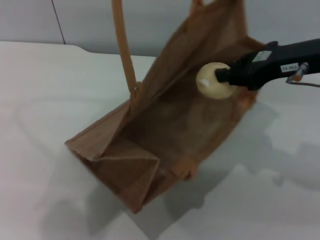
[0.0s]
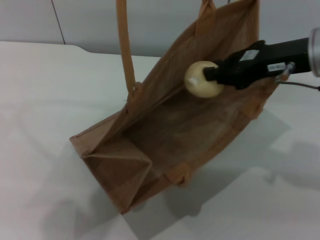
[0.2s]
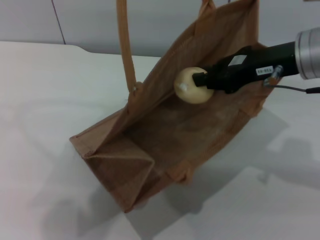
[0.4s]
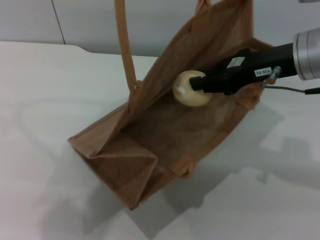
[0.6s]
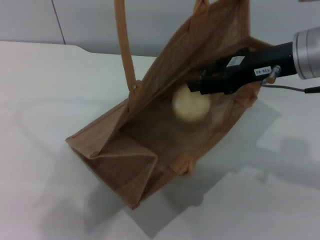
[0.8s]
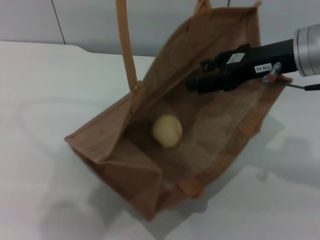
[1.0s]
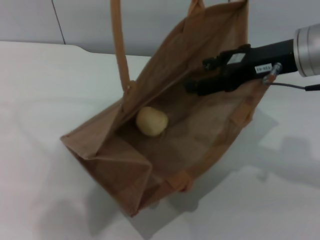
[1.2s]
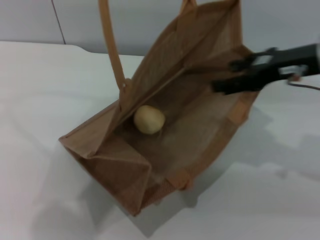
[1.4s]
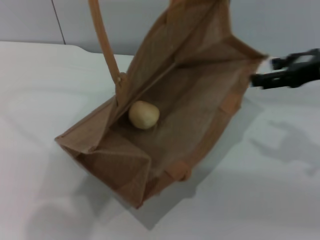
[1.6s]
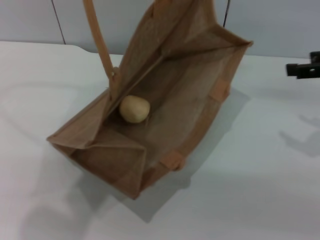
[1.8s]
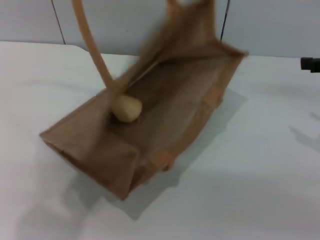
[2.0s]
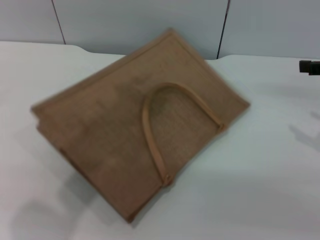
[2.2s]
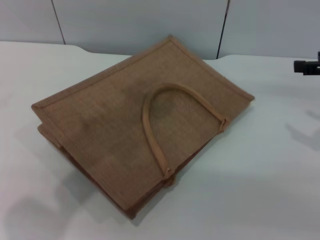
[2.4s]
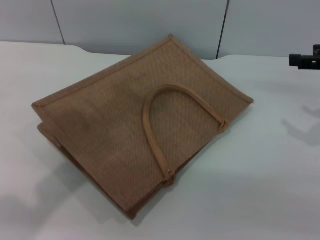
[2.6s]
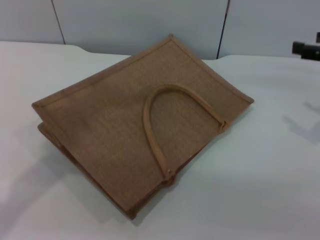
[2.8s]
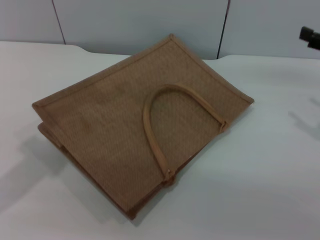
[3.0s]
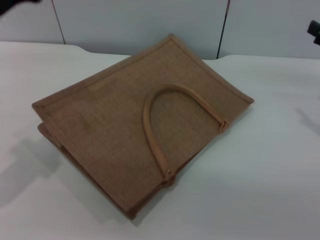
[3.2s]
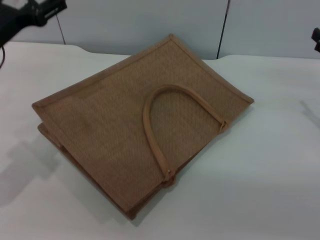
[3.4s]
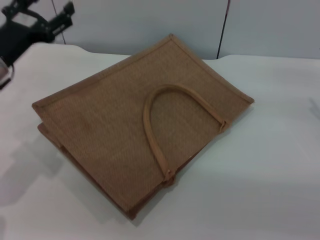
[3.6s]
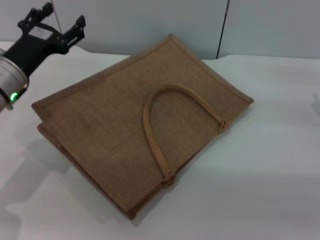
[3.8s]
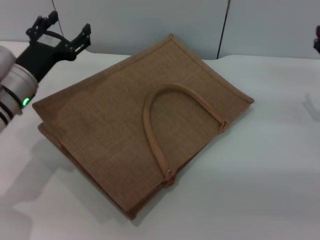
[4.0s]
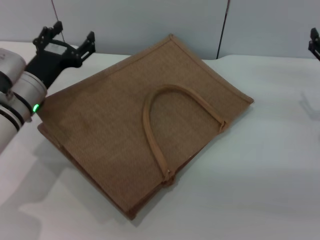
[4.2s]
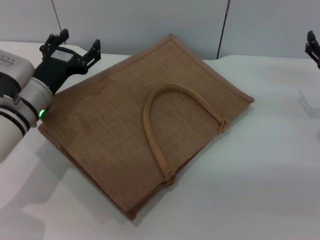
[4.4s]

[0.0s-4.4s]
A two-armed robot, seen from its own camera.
Task of the whole recording: pick up the egg yolk pastry from the table and place it in the brown handbag.
Step, 0.0s to 1.6s: Place the egg yolk pastry into the woven bag with the right gripper.
Step, 2.0s to 3.2s: Lower the woven bag with the left gripper to close it.
0.0s to 1.4s: The right gripper opens up.
1.4s to 3.0s: The left gripper goes about 20 cm downward and to the left, and opens its fingers, while the right gripper shifts about 10 cm to the right.
3.0s to 4.4s: The left gripper travels downward by roughly 20 cm.

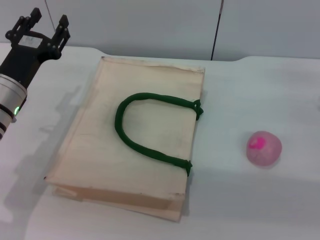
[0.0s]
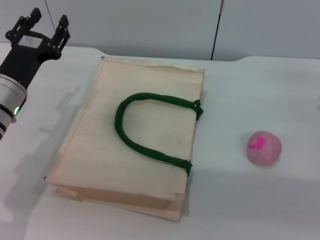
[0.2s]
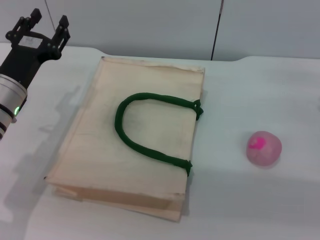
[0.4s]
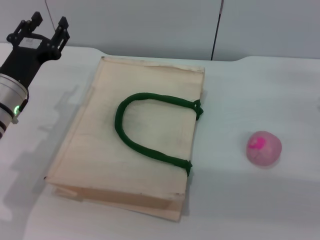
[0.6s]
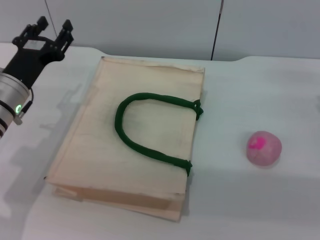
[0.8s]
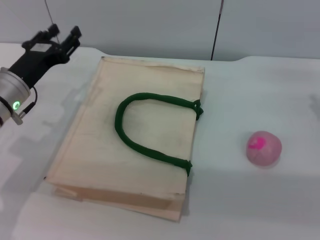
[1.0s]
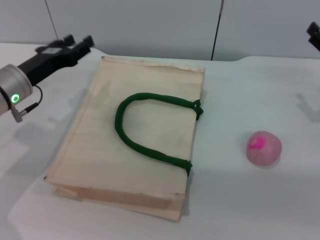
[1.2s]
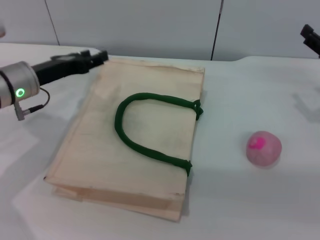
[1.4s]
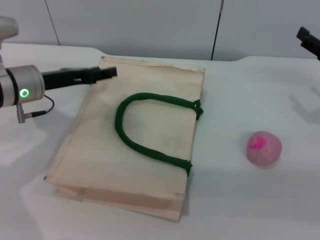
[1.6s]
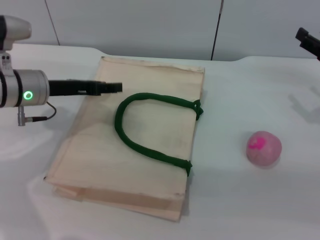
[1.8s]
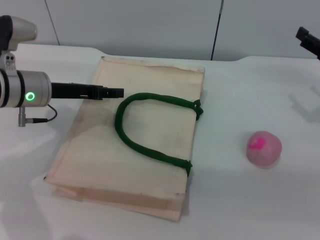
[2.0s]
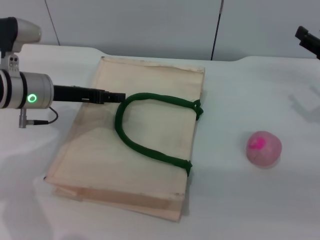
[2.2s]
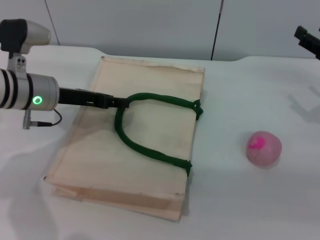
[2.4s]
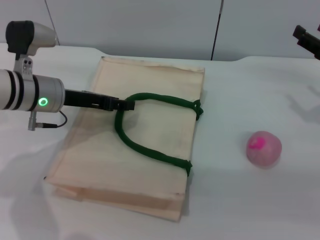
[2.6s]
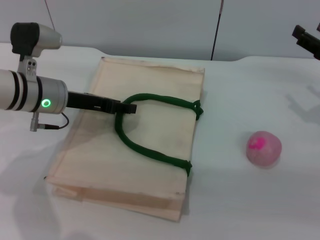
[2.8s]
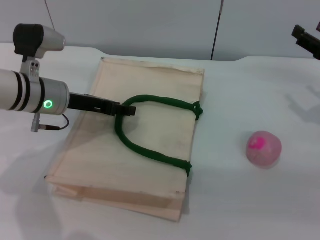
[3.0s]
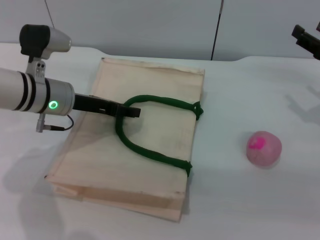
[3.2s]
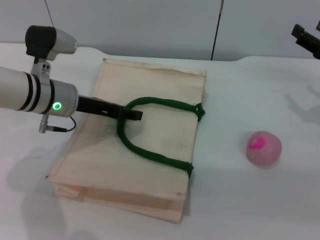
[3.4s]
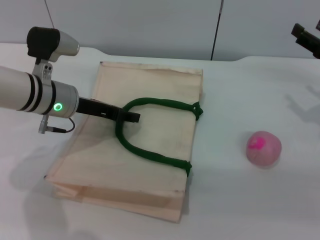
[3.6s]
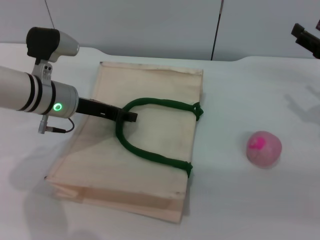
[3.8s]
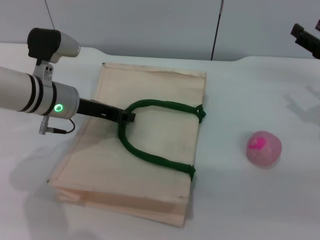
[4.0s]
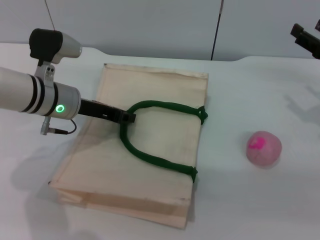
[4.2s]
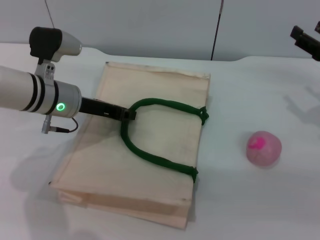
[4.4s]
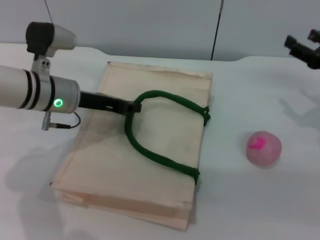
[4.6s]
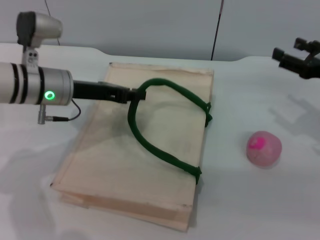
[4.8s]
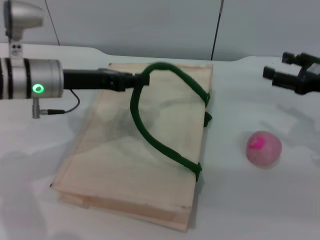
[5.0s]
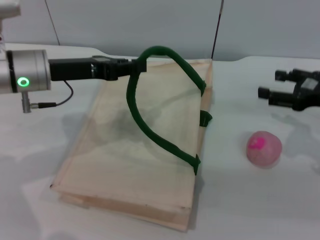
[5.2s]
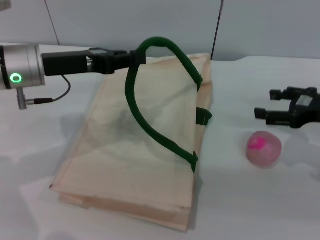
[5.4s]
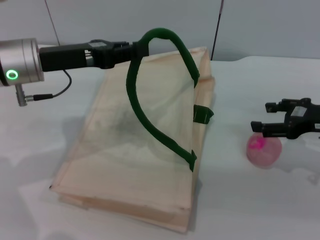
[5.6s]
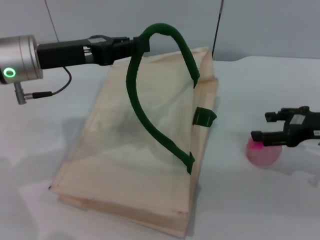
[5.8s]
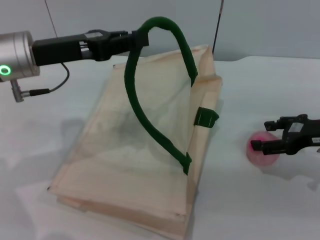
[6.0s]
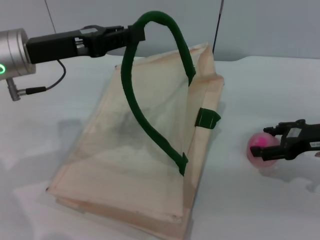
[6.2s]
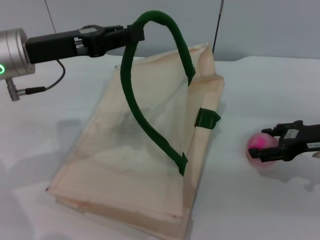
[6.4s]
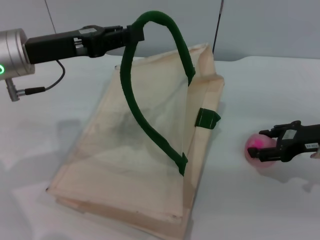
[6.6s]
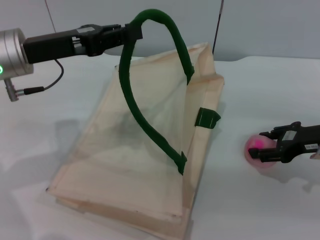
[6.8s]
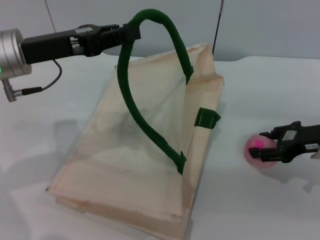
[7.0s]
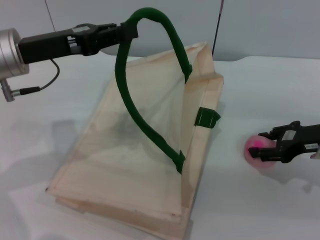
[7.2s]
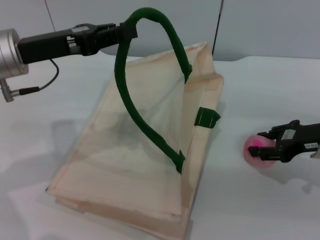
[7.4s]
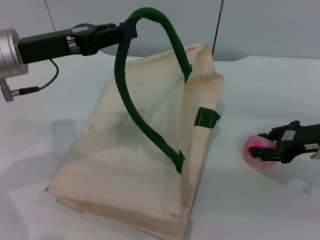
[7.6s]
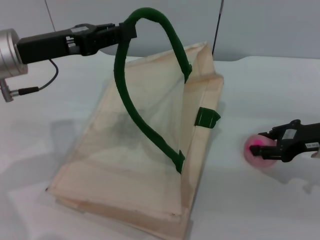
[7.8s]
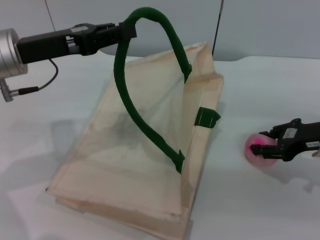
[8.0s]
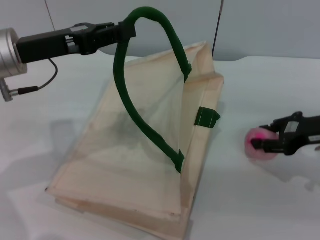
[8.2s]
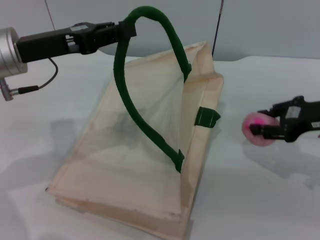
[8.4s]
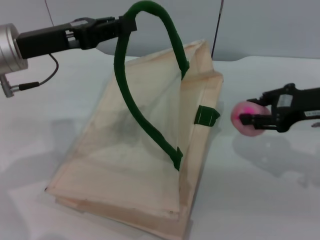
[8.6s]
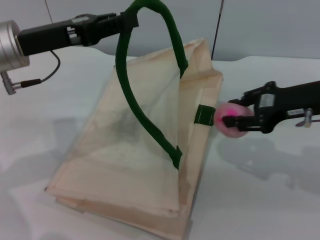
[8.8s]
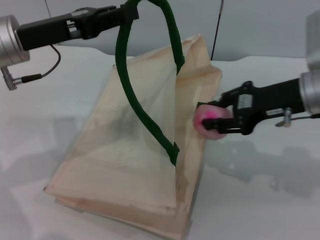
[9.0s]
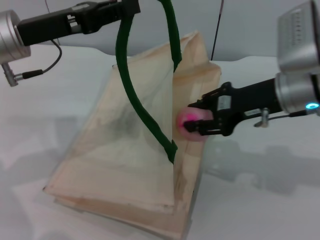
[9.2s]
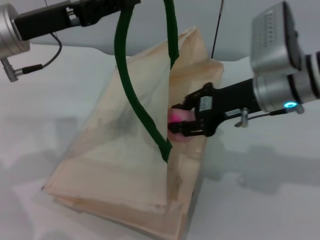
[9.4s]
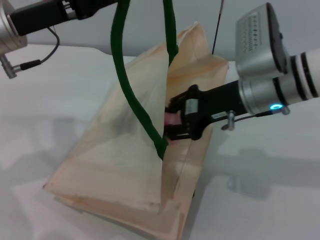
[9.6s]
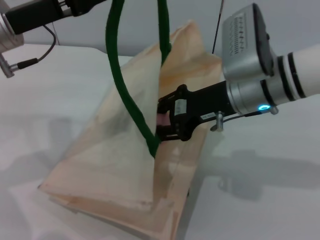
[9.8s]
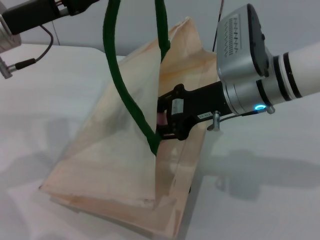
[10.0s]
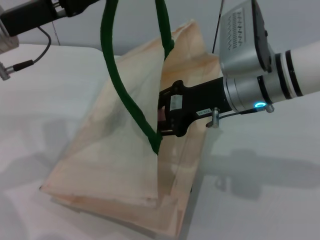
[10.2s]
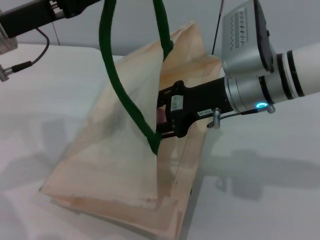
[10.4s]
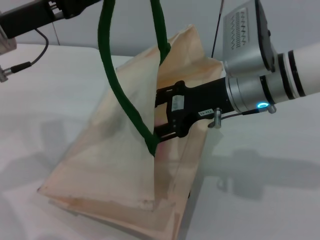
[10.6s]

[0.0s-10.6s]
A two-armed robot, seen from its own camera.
Task of the whole recording: pick up the peach from the table and place it in the white handbag.
Step, 0.0s to 4.4s: Lift the woven bag with the left gripper to open it.
Step, 4.6s to 8.4s: Pick up the peach with the right gripper.
0.0s to 1.6s: The left gripper ends up about 5 cm from where it was.
1.6s to 3.0s: The grippers stay close to where they were, moving slightly.
3.0s to 4.6s: The left gripper closes its fingers.
4.6s to 6.0s: The left gripper heads upward, covering about 10 cm.
6.0s to 7.6s: The right gripper closes its fingers.
7.6s to 9.0s: The right gripper moves to the left and upward, roughly 10 cm.
9.0s to 10.6s: The right gripper heads to the left, covering roughly 10 cm, and opens.

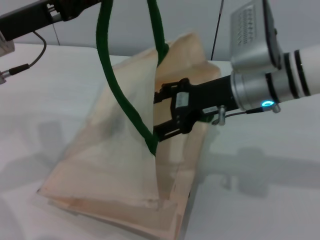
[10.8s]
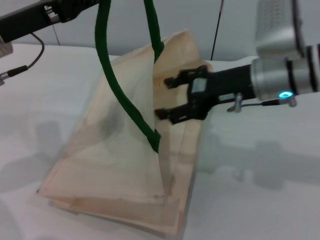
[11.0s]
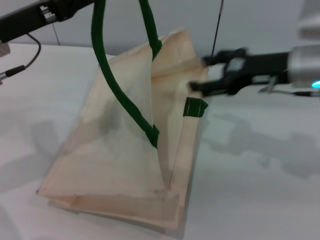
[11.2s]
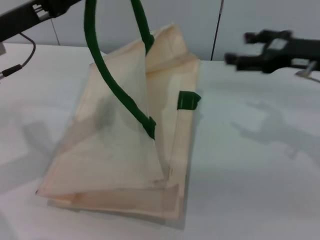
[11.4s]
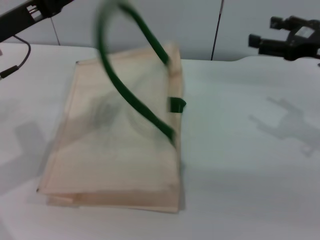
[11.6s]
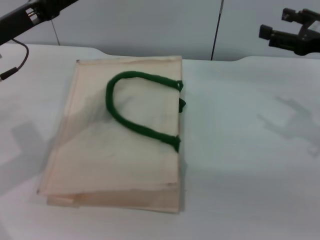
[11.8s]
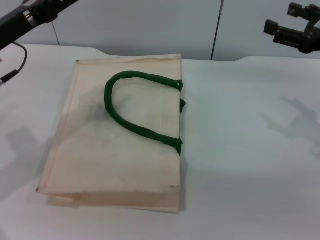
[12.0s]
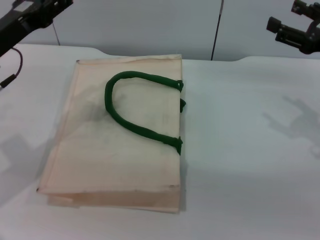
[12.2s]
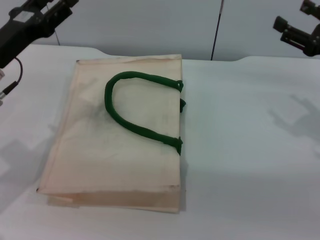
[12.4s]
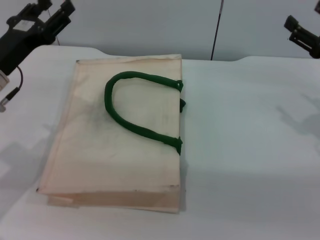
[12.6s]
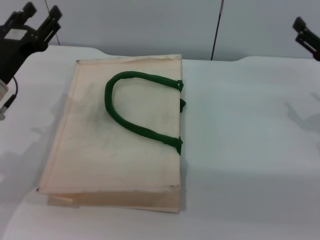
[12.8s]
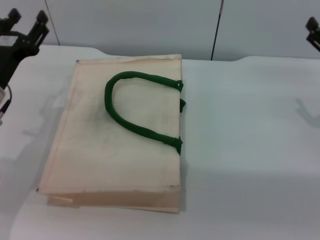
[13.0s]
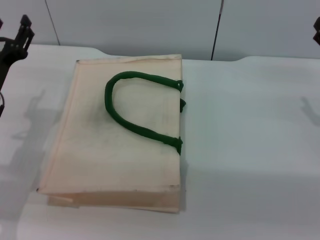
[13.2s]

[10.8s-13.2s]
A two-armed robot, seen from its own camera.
Task of the whole recording: pick up the peach from the table and place it in the white handbag.
Step, 11.2s to 11.8s: Lower the woven bag with the left gripper to close it.
10.8s to 12.0s: The right gripper heads to the right, covering roughly 15 cm, while the left gripper opens up.
12.0s to 13.2s: The two grippers go about 10 cm downward. The left gripper opens.
